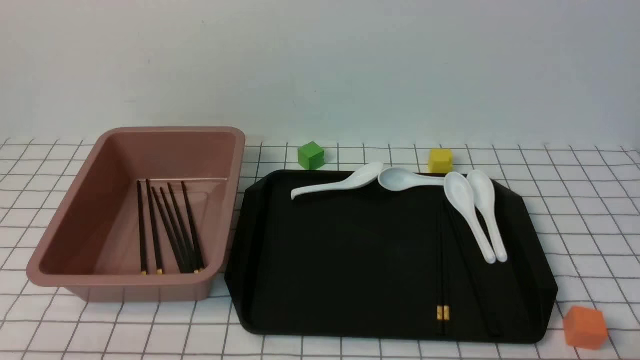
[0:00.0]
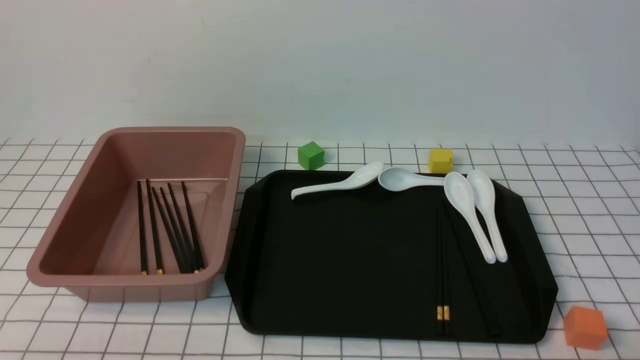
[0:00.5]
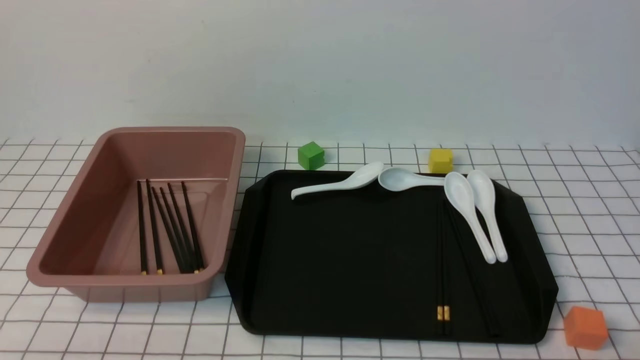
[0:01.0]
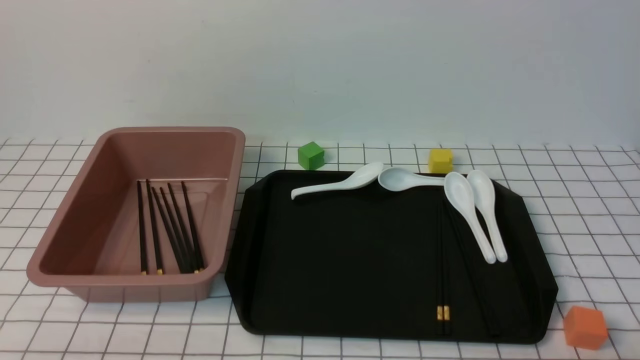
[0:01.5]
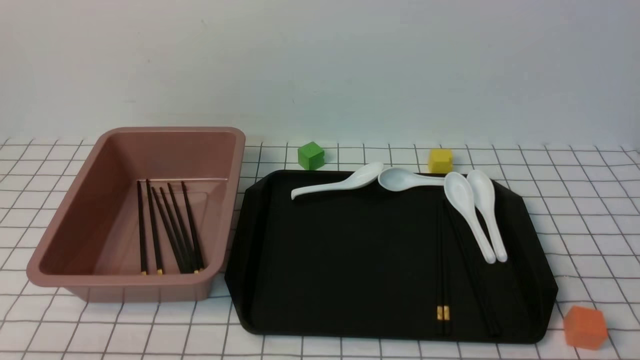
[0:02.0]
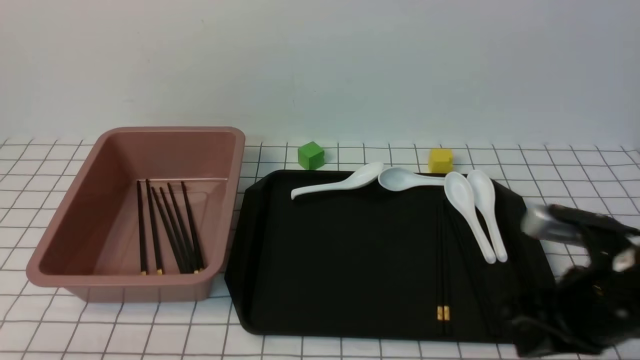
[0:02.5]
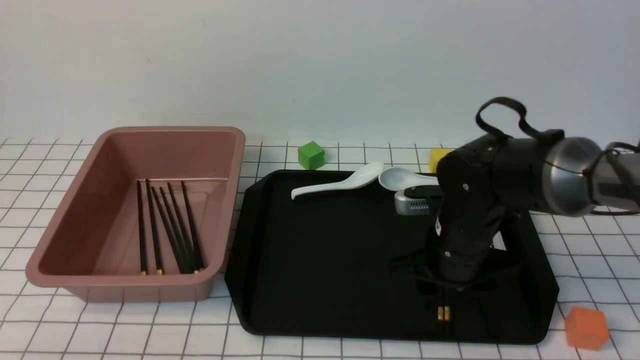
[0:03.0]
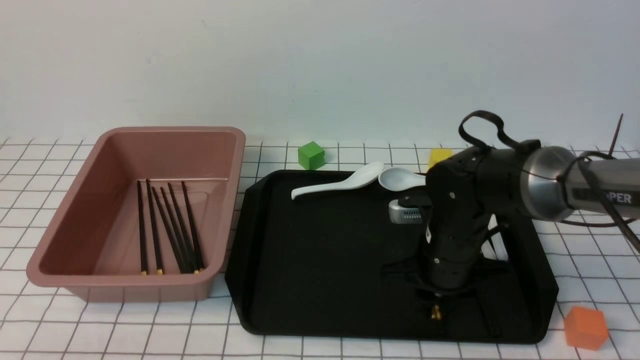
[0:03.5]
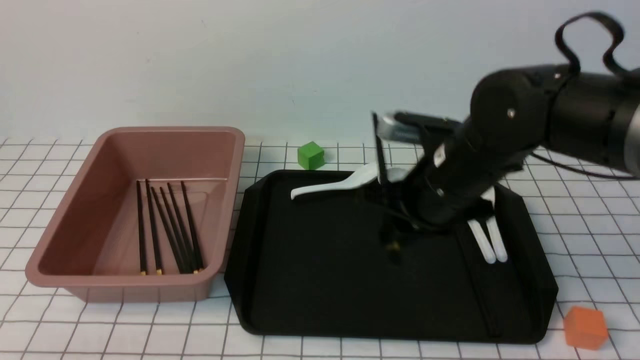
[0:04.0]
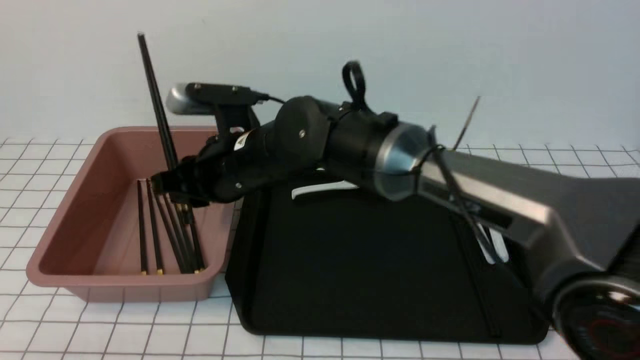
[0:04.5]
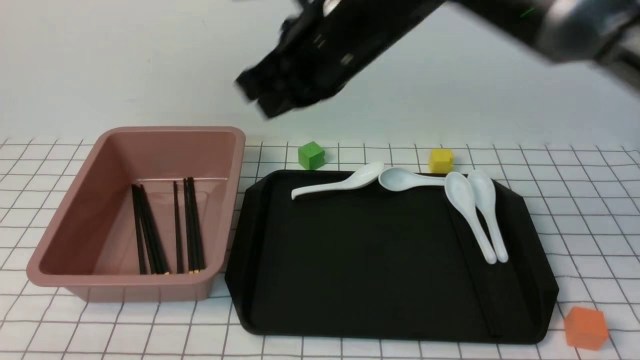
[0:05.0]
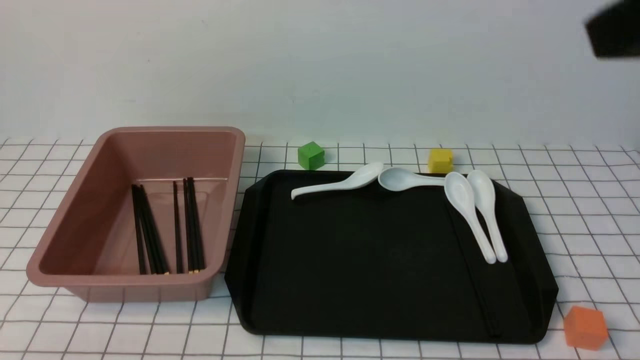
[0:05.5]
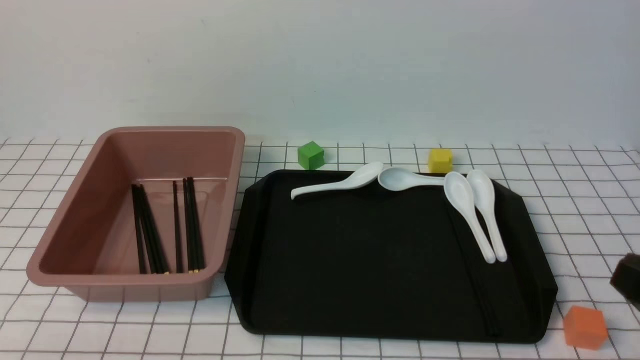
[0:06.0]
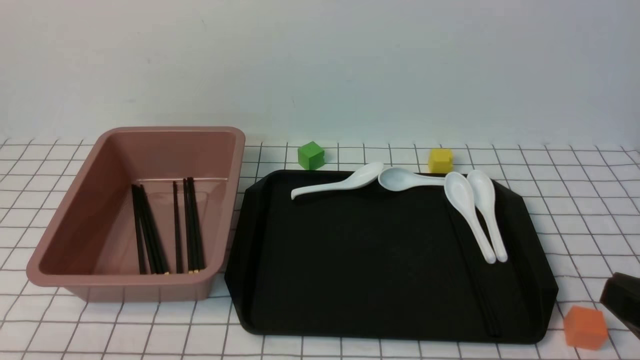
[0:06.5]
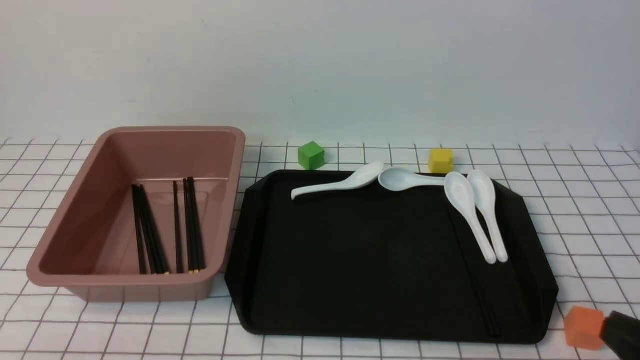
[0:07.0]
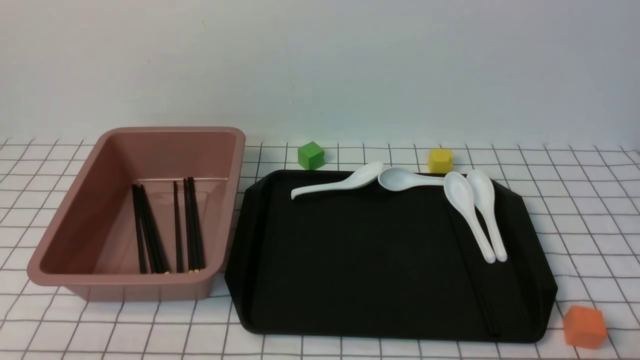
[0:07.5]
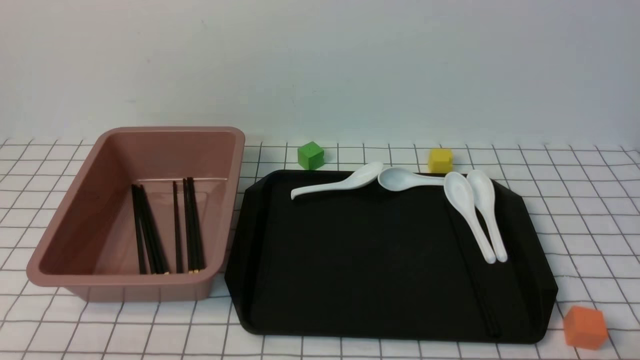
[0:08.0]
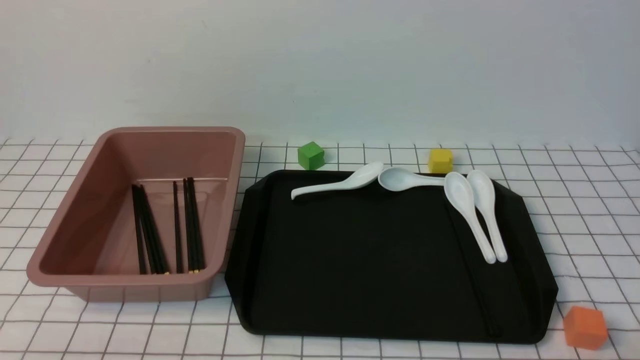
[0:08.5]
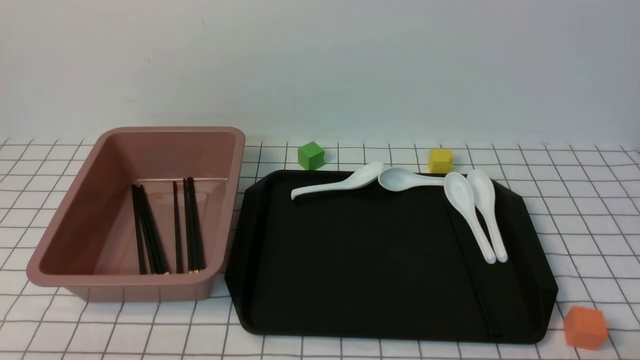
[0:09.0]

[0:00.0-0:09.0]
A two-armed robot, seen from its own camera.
Step, 0:00.0 to 0:03.5: use the right arm to grab a pair of chopsticks.
Step, 0:04.0 to 0:04.5: use the right arm to put the chopsticks into the lunch box.
0:02.0 to 0:04.5: The right gripper goes about 40 cm to the left and forward, and opens up. The left gripper opens its fingers.
0:04.5 to 0:07.0: The right gripper is displaced to the right and backward by about 40 cm, and closes.
0:07.0 to 0:09.0: The right gripper moves downward, some 5 cm.

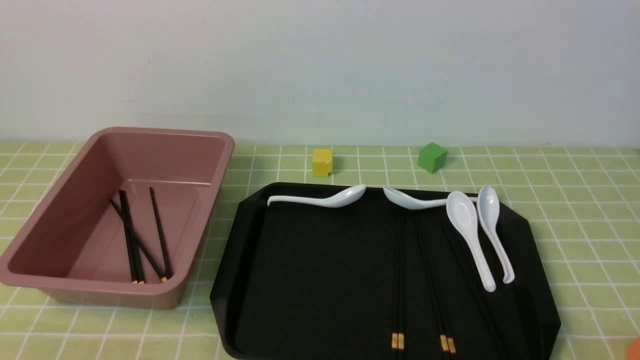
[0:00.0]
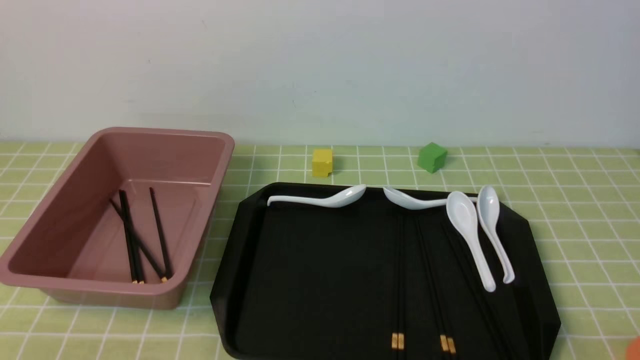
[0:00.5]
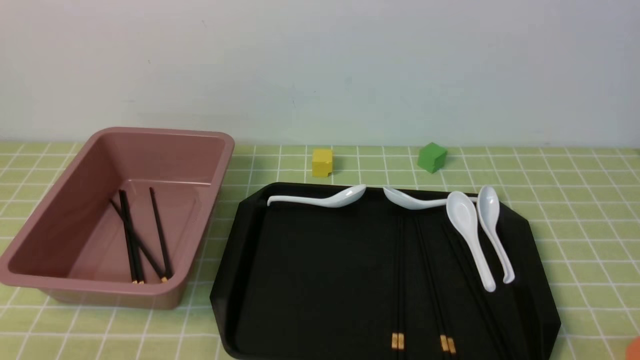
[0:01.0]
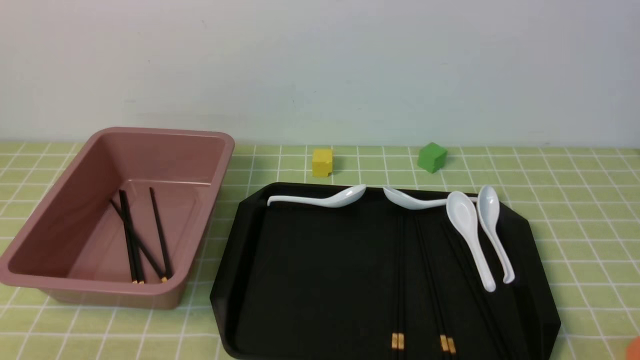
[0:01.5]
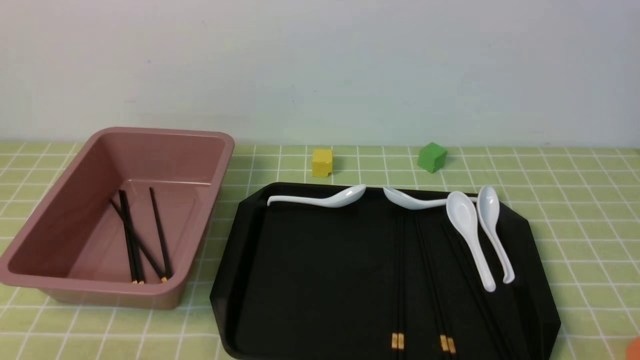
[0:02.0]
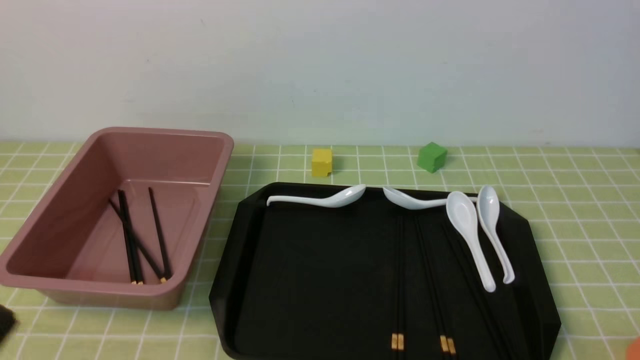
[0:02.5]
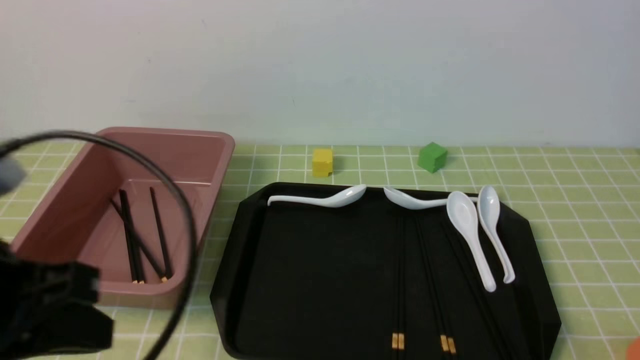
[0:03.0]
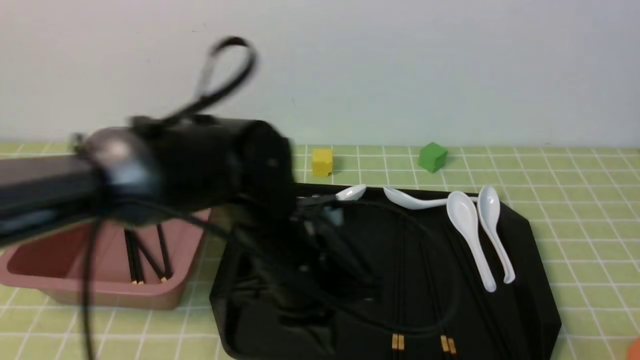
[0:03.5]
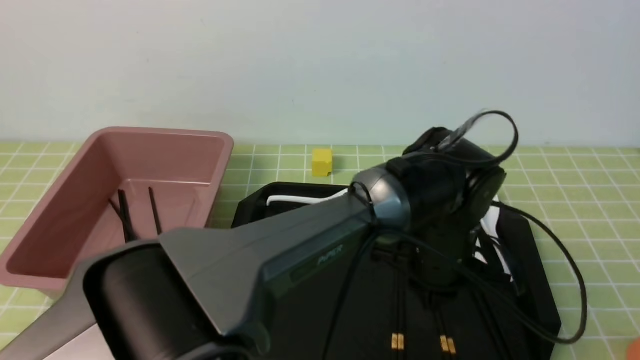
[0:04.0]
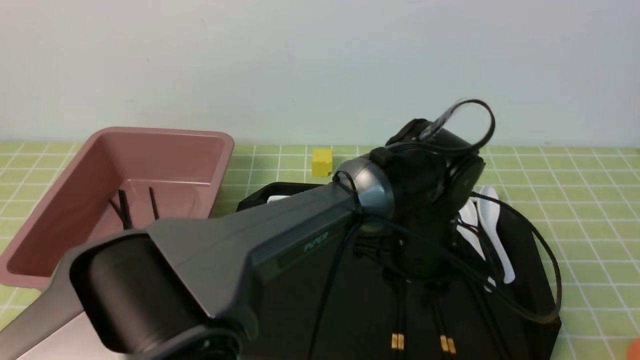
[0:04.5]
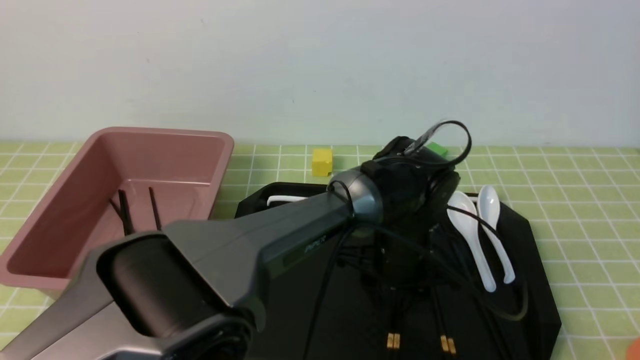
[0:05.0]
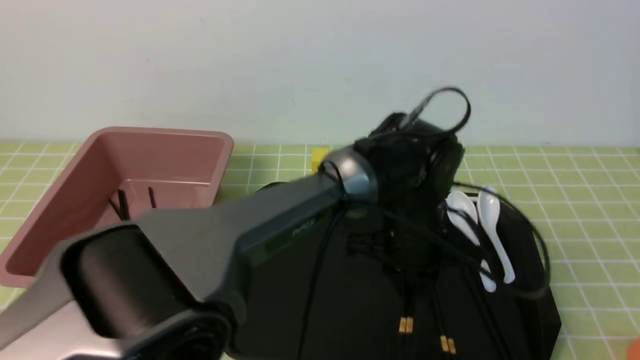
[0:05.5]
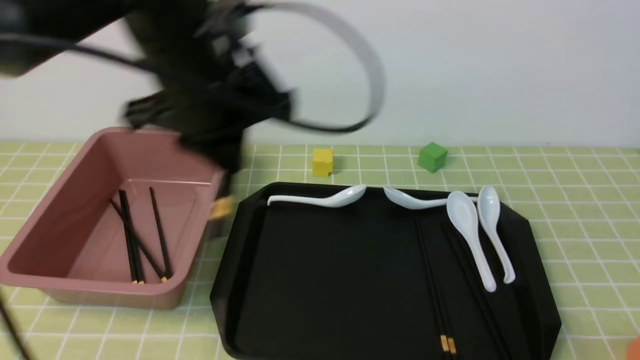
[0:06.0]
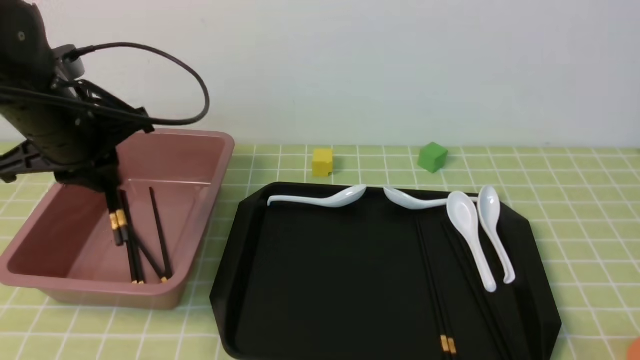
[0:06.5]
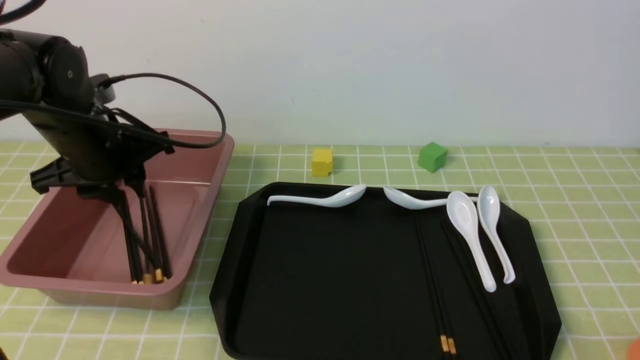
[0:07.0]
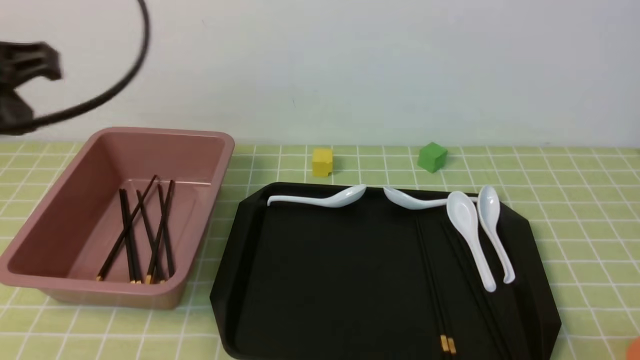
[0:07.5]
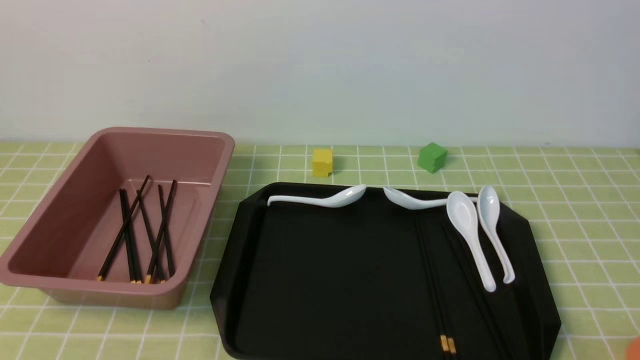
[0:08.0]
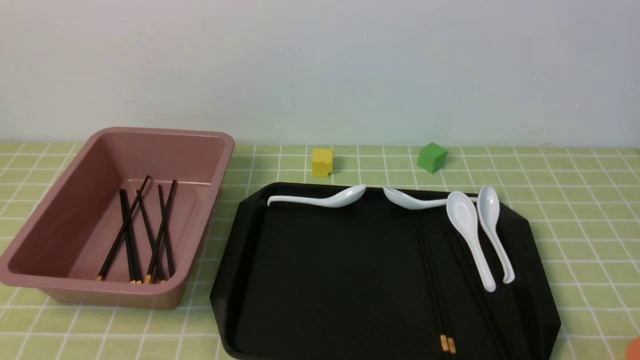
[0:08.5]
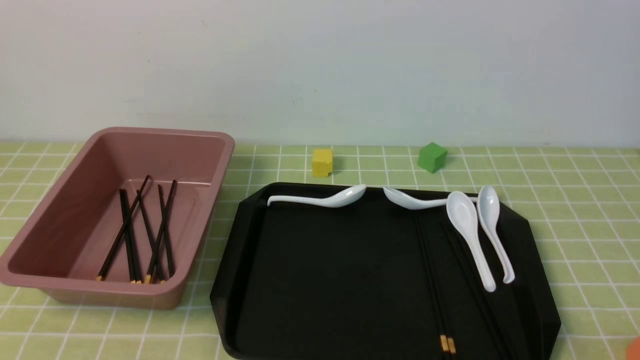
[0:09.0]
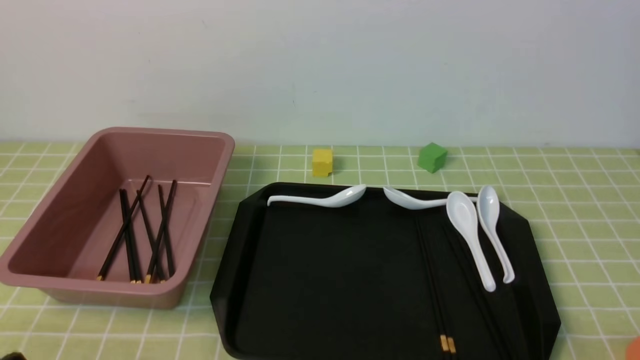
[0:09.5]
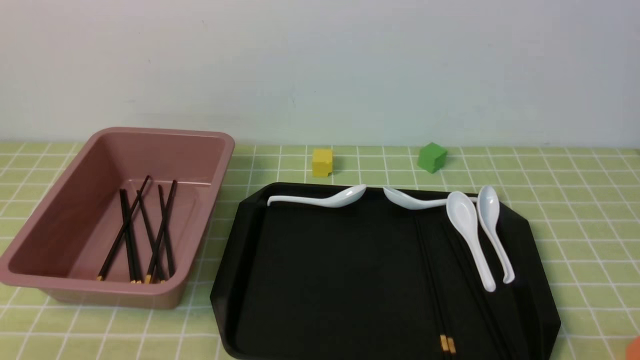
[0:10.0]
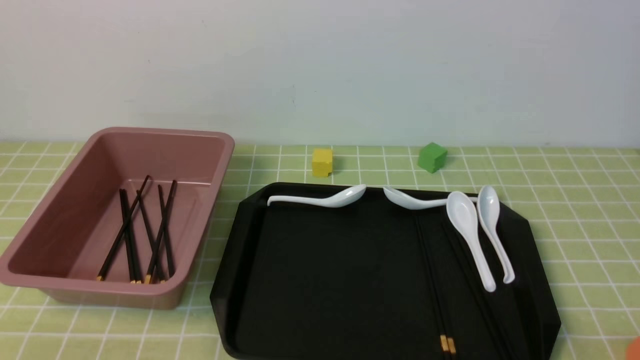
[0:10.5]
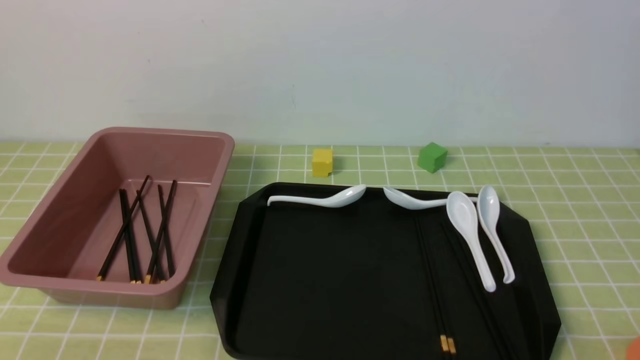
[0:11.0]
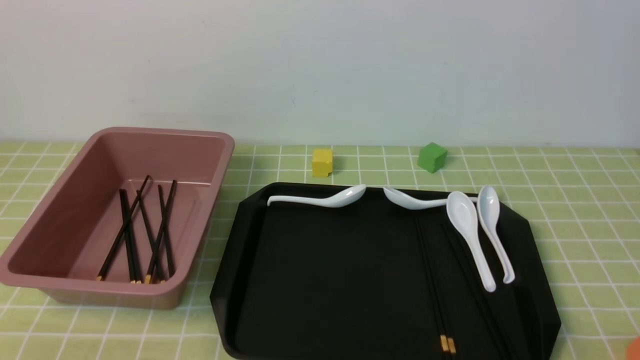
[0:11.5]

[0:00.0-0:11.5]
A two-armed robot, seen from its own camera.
Step, 0:00.0 to 0:05.5: use the left arm to grab a pair of chopsticks.
Step, 0:06.0 to 0:07.0: use the left arm to put the chopsticks into the lunch box.
0:02.0 to 0:04.0: The left gripper shifts about 40 cm to the right and forward.
0:04.0 to 0:06.0: The left gripper goes some 30 cm to the left and upward, and opens and closes again.
0:06.0 to 0:07.5: The left gripper heads to the left and backward, covering approximately 20 cm.
0:07.5 to 0:09.5: The left gripper goes approximately 25 cm downward and backward.
